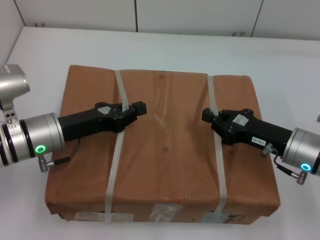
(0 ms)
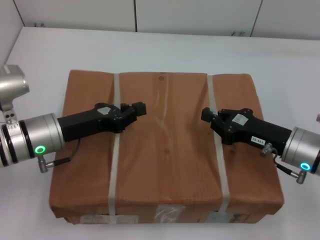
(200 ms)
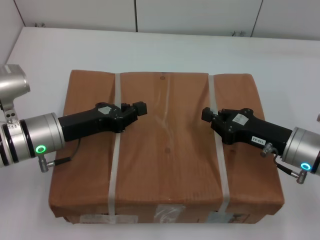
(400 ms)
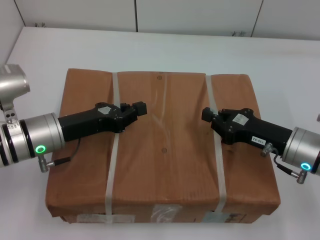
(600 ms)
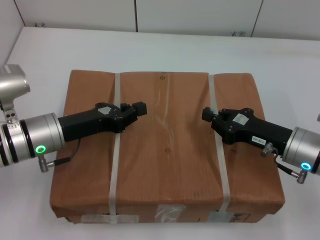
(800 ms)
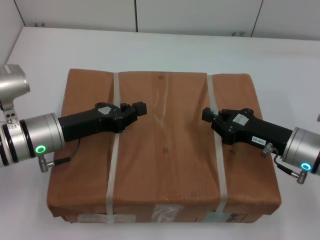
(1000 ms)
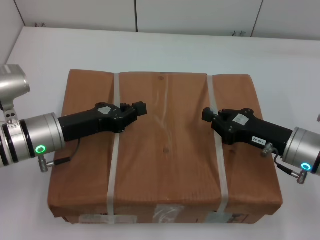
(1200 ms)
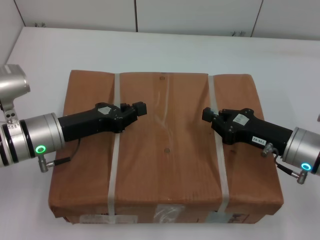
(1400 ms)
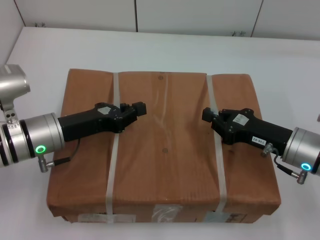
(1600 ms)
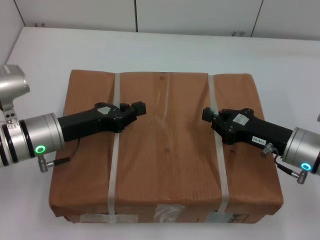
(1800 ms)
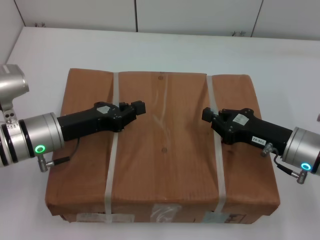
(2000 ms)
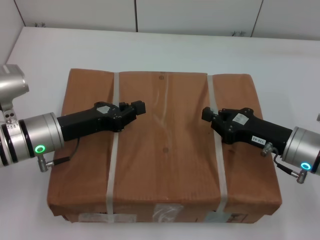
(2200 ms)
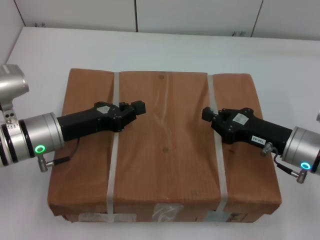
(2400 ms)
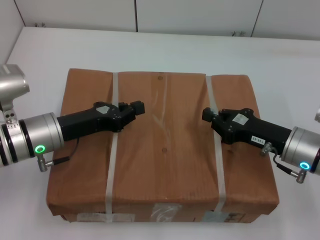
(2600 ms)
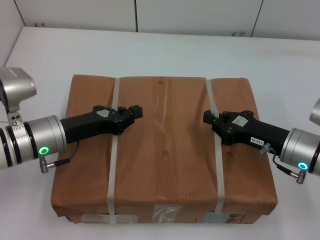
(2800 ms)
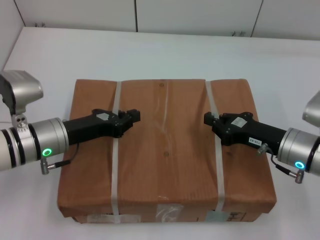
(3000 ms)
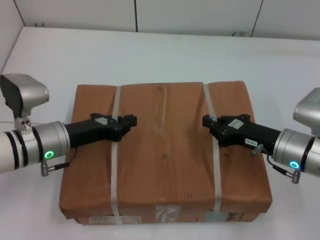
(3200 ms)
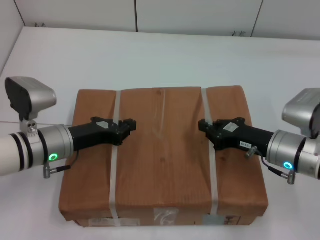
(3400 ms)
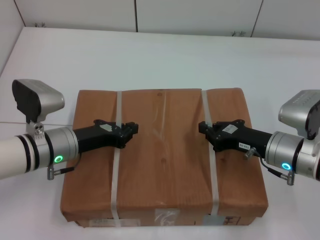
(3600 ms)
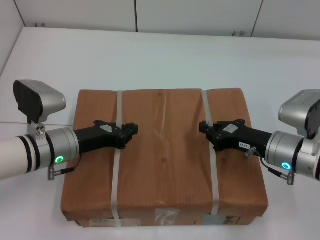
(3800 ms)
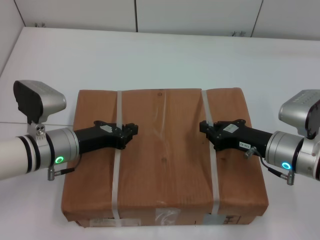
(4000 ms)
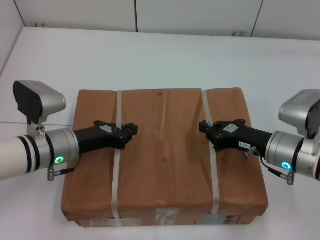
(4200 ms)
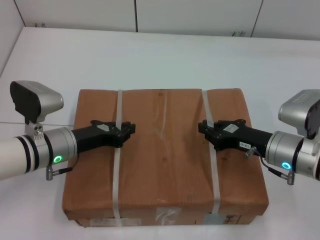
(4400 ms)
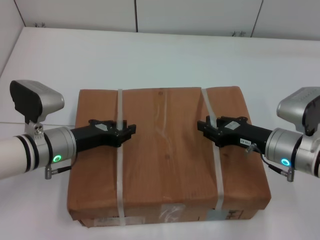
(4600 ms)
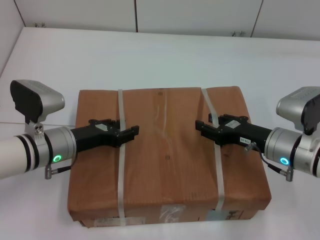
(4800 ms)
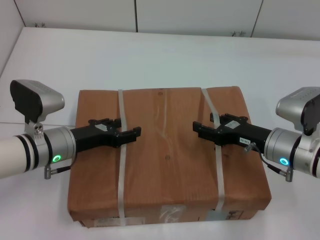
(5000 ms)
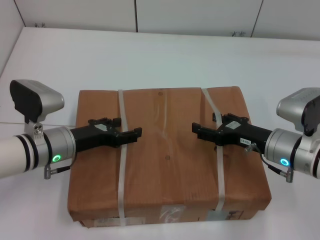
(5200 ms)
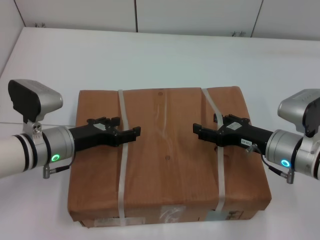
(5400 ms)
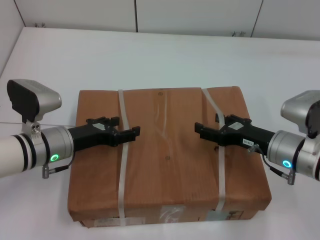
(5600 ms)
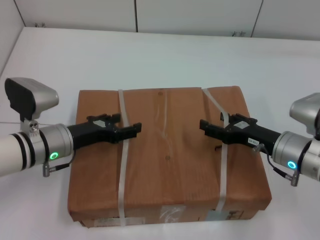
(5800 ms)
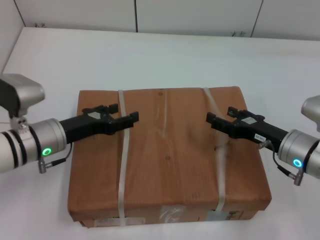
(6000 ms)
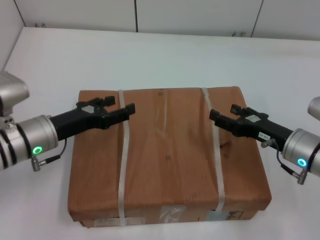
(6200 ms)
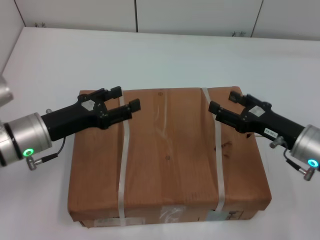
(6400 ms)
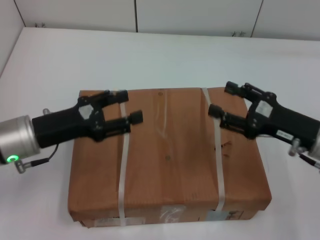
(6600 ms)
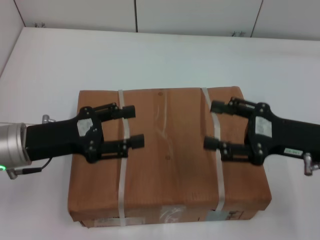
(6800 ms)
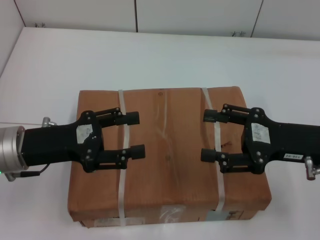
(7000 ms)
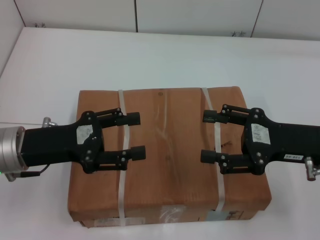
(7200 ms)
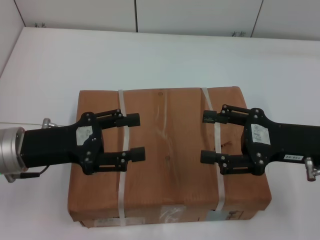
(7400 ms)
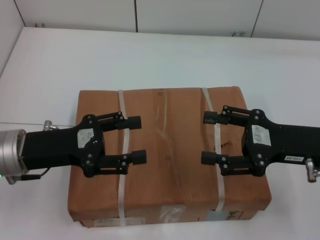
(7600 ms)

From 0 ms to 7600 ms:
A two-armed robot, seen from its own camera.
Task of the whole recording: place the box on the table with both arms.
Step, from 0 ms to 4600 ms: Place the box on the table with left gripper.
Step, from 0 ms to 4600 ms: Place the box on the table with right gripper.
Step, from 4800 ms to 5800 ms: Loosen the box on the table with left gripper.
Step, from 4800 ms to 5800 ms: Loosen the box on the table with right gripper.
From 0 ms to 1600 ms: The two grippers keep their place.
From 1600 ms to 3000 ms: The grippers make only small movements.
From 4600 ms to 6000 ms: The left gripper opens up, while the right gripper opens.
From 6000 ms to 7600 ms: The left gripper goes roughly 10 cm upward and backward. Meanwhile the right gripper shifts roughly 10 cm upward.
